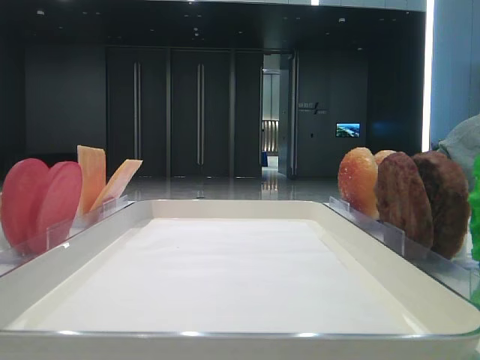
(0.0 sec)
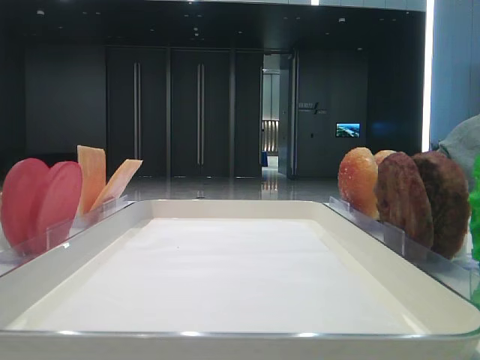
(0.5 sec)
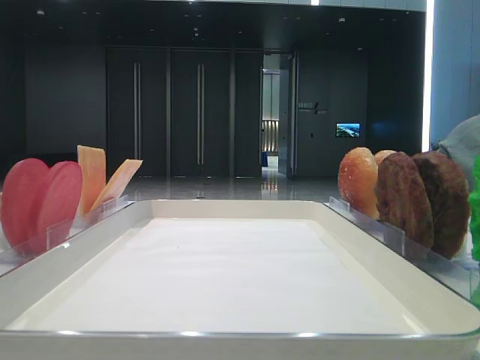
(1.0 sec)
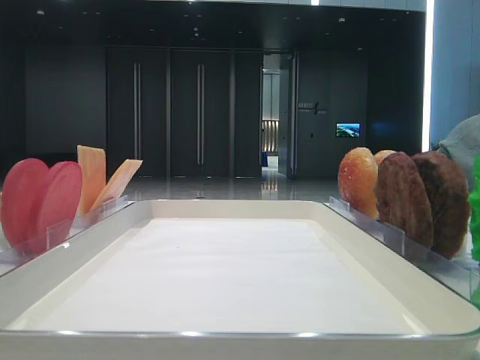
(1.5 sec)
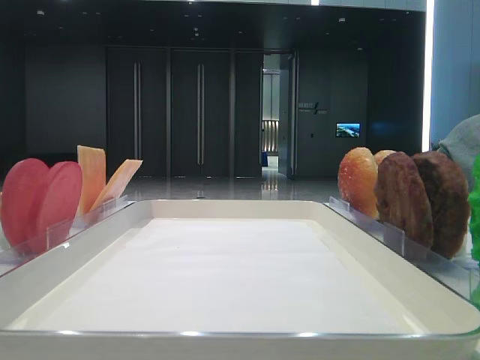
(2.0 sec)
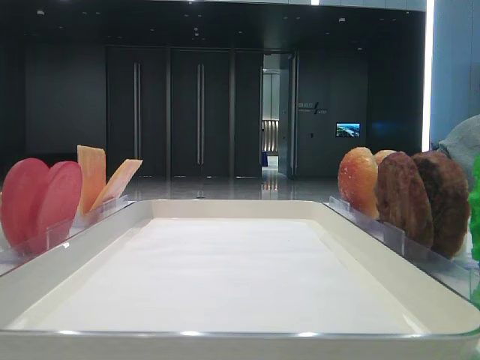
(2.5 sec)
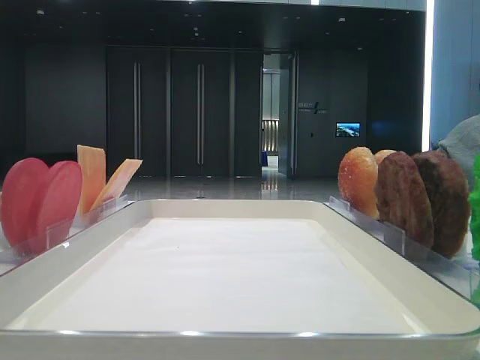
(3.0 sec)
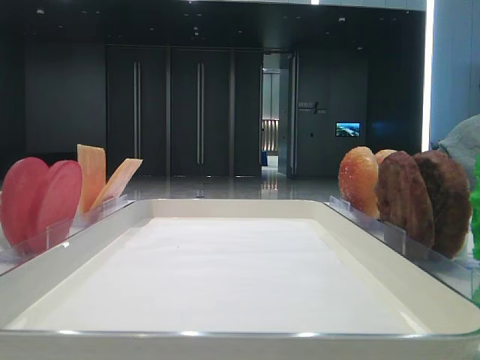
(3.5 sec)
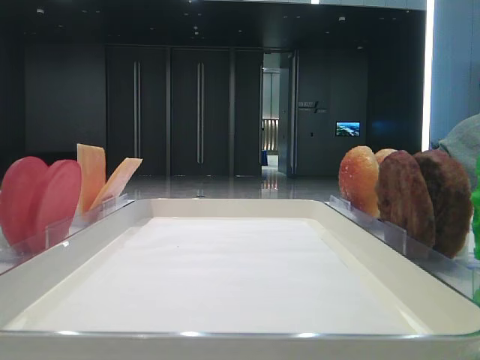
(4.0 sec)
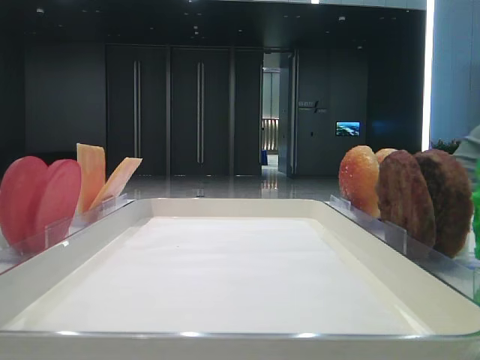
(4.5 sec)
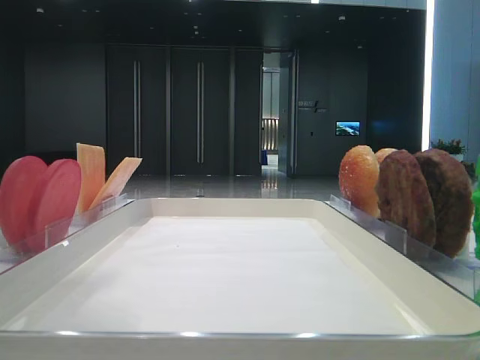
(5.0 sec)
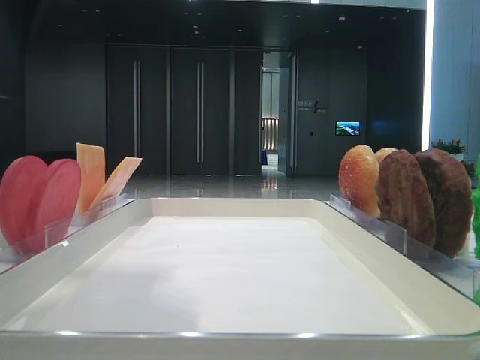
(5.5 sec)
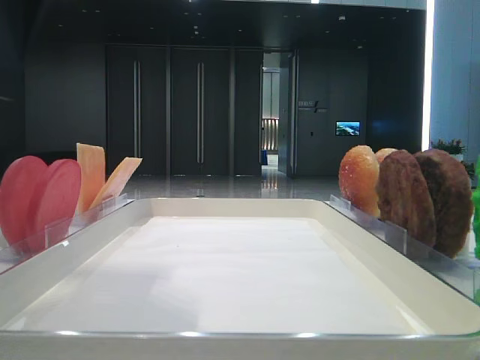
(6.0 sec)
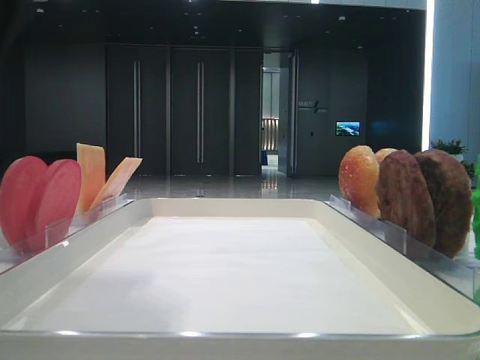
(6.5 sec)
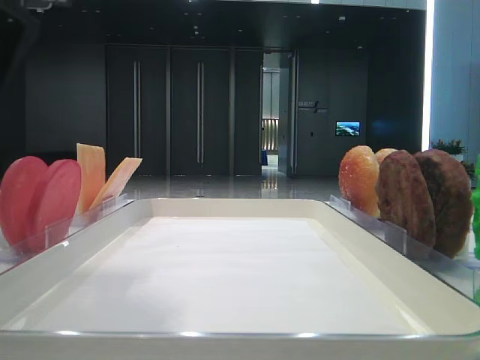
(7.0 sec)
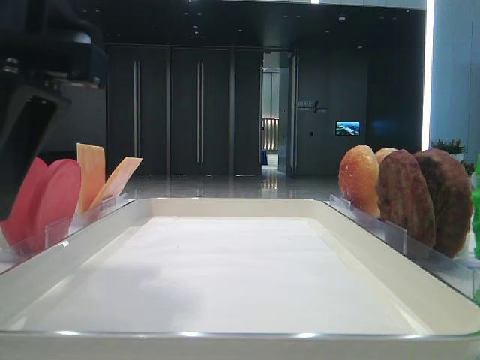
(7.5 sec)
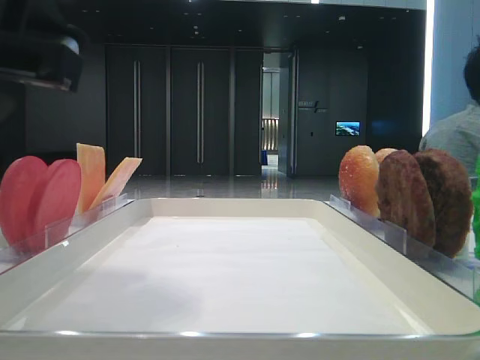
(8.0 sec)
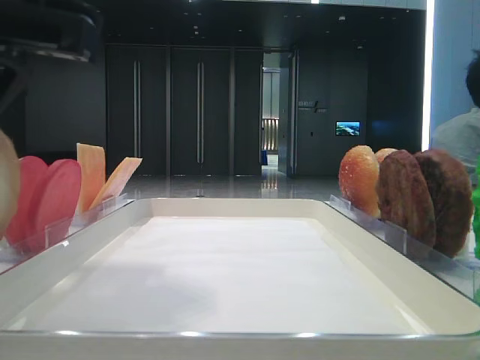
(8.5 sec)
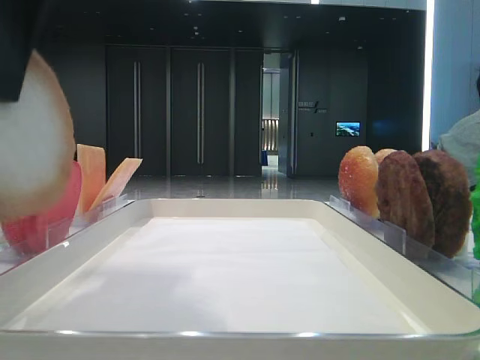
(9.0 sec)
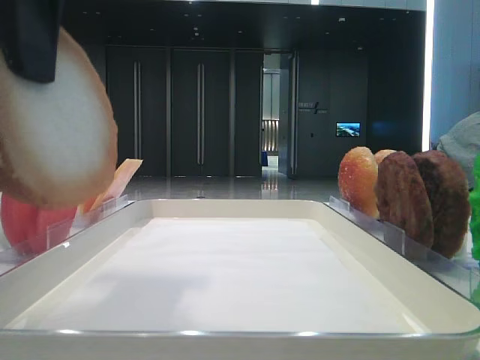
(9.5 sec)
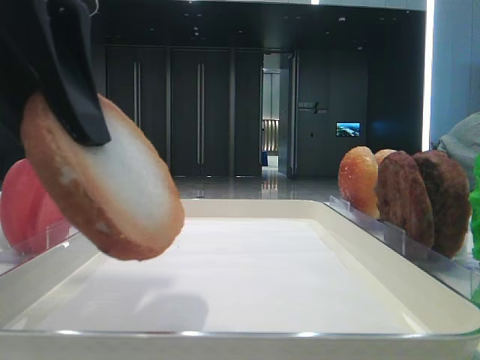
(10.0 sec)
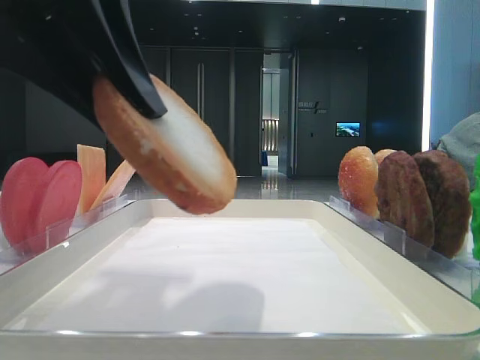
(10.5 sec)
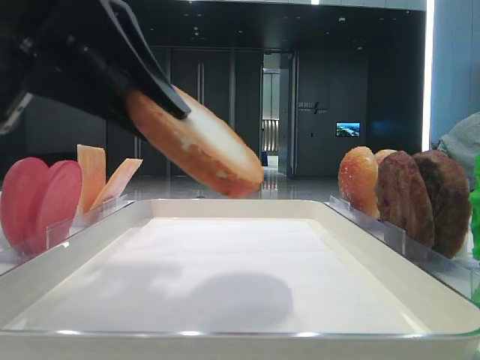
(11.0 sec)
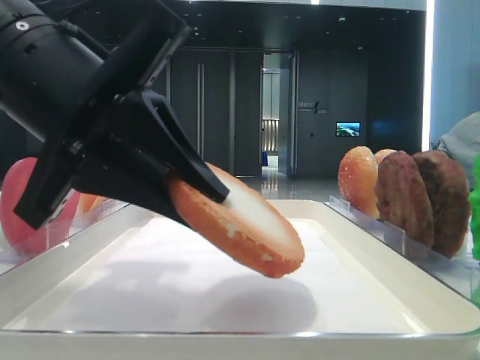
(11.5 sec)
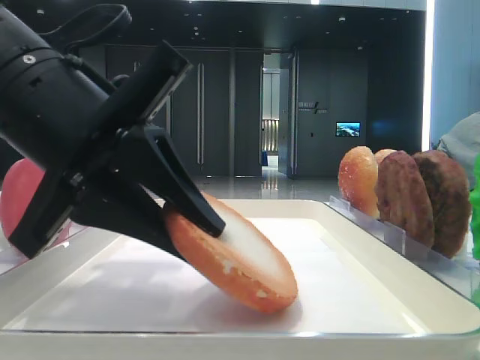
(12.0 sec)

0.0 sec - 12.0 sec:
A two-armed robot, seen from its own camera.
Step, 0.0 sec - 8.0 sec: Pick up the bottom bread slice with the left hand.
2.0 sec - 4.0 sec: The left gripper goes about 15 cm forward.
4.0 sec - 6.0 sec: The left gripper moves to the right, roughly 15 cm.
10.0 sec - 12.0 sec: The left gripper moves downward, about 10 cm.

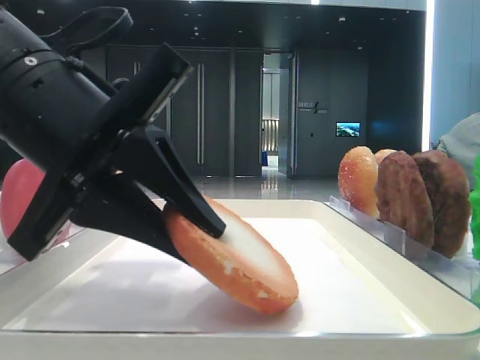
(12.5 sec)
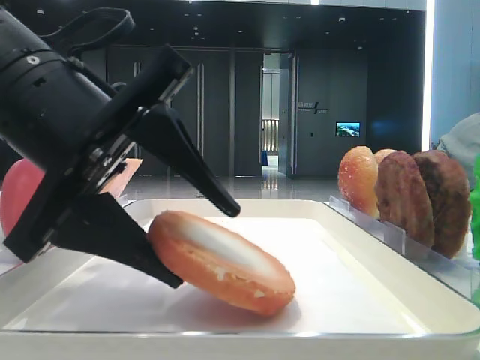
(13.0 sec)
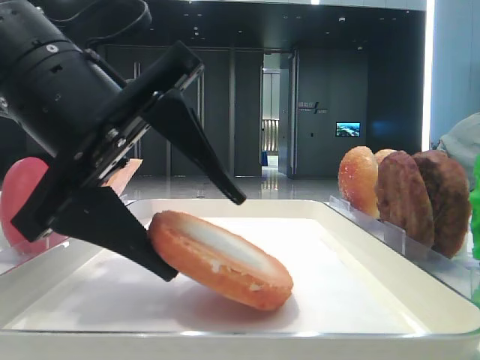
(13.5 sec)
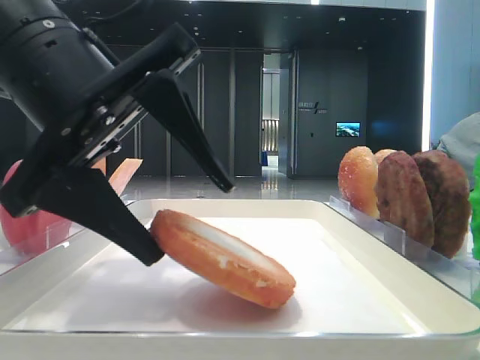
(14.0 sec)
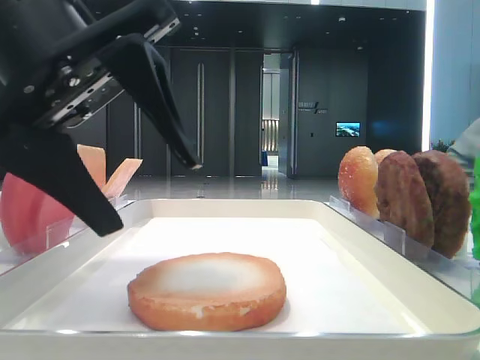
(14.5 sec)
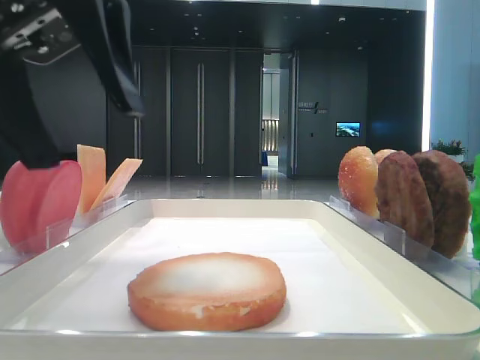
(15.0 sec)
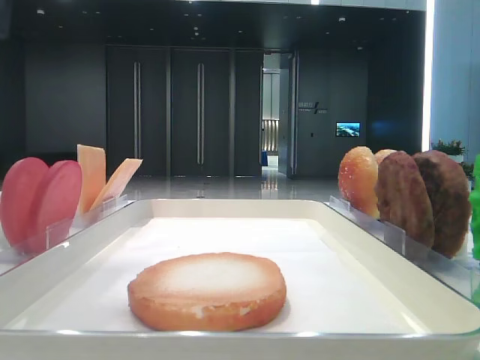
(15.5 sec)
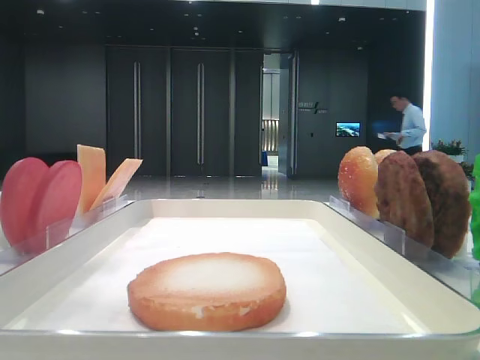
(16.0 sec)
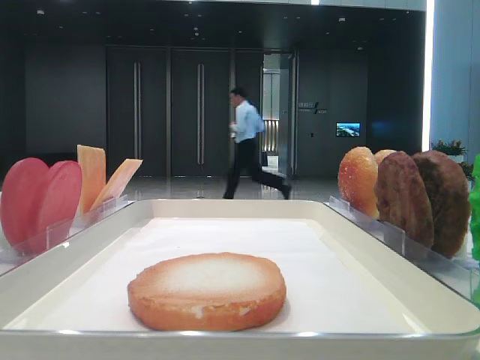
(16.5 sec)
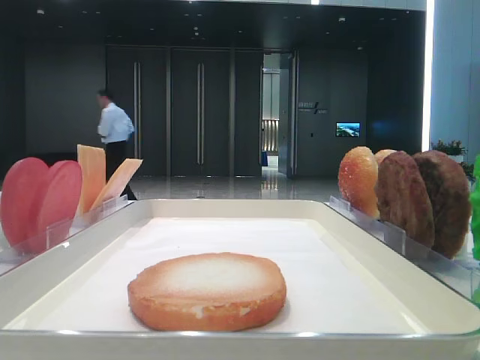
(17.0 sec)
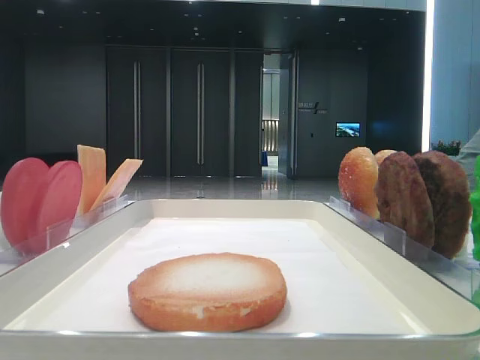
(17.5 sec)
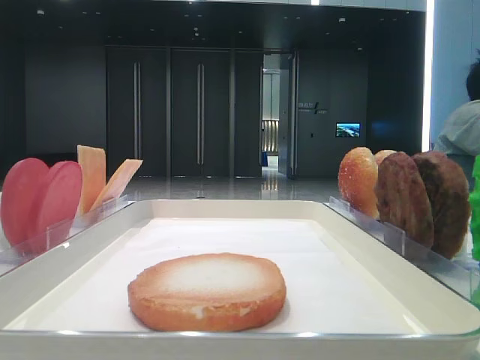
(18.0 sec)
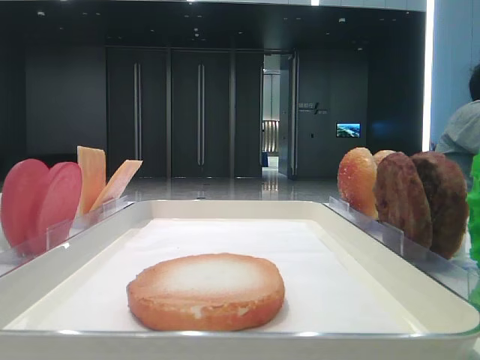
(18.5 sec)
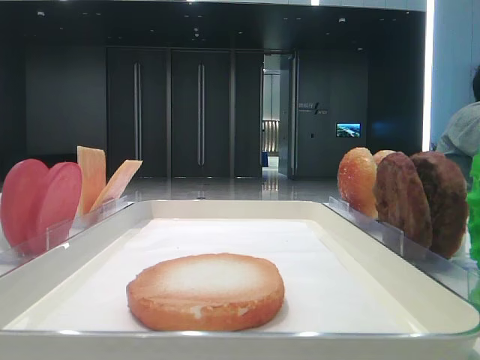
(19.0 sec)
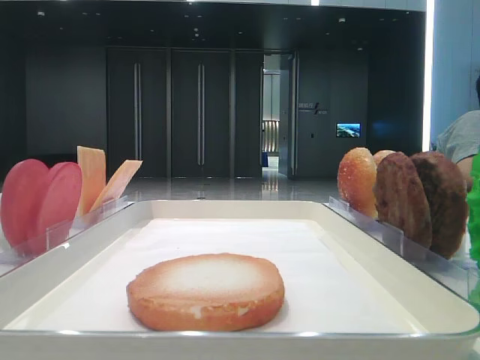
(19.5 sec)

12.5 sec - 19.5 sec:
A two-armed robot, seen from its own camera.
12.5 sec - 14.5 sec: The left gripper moves roughly 5 cm, and opens.
14.5 sec - 16.0 sec: The left gripper shifts about 15 cm upward and to the left.
16.0 sec - 17.5 sec: The left gripper travels backward and to the left by about 15 cm.
17.5 sec - 19.5 sec: The left gripper moves backward and downward, some 15 cm.

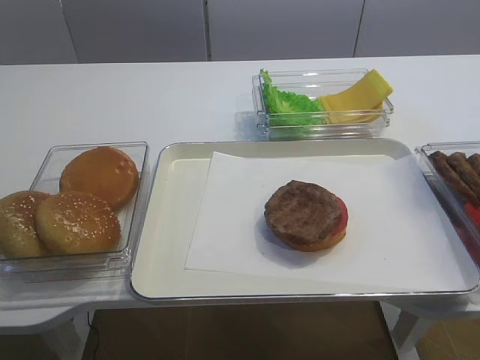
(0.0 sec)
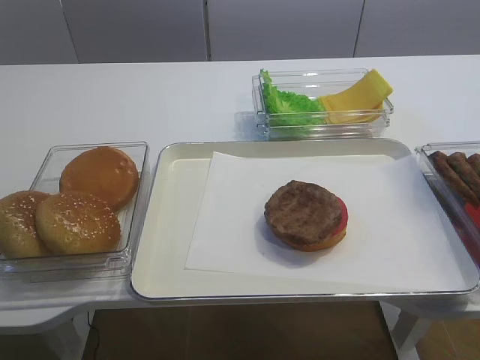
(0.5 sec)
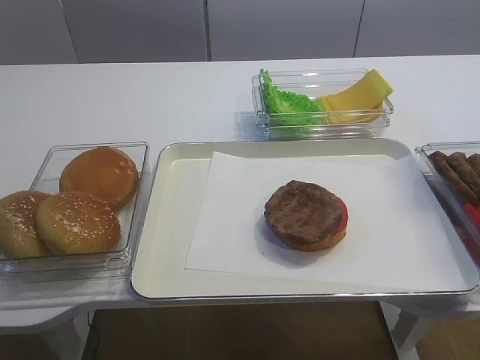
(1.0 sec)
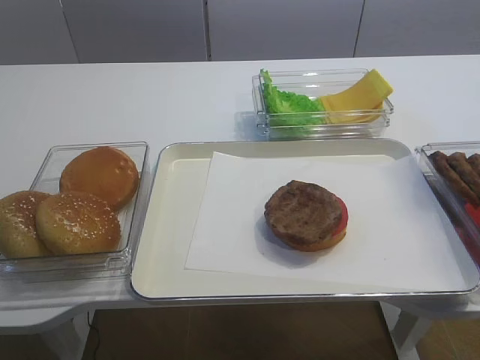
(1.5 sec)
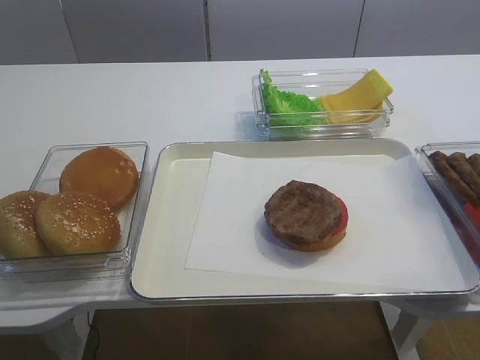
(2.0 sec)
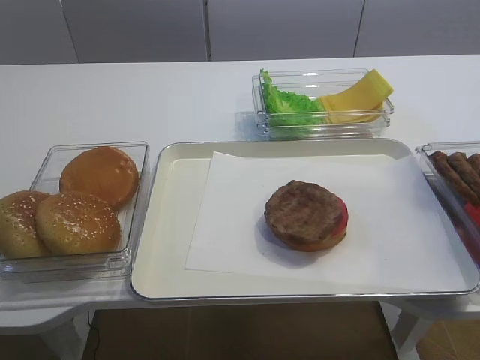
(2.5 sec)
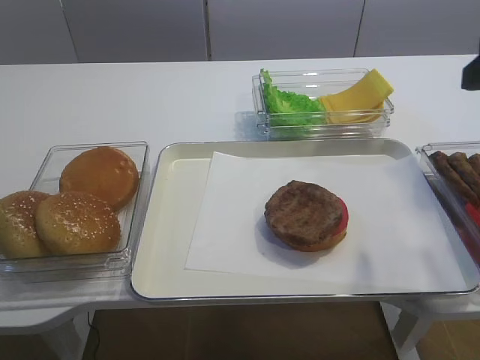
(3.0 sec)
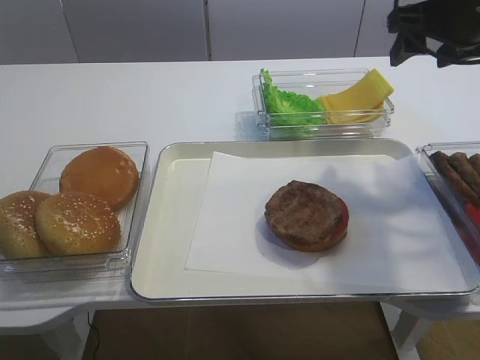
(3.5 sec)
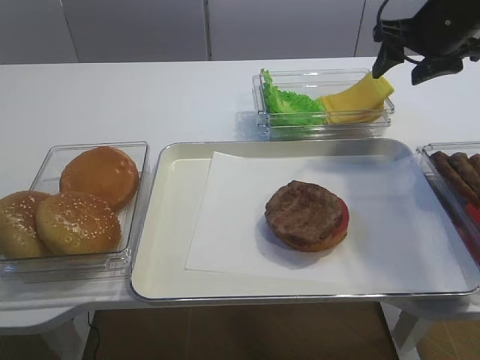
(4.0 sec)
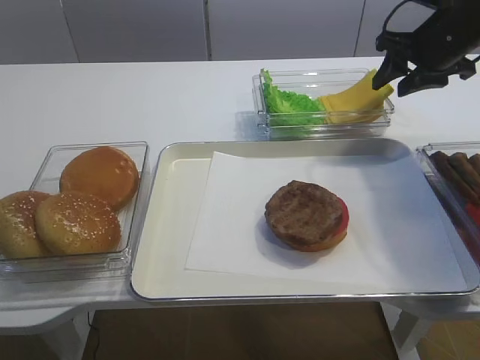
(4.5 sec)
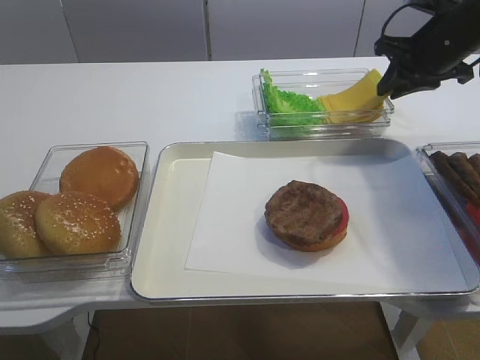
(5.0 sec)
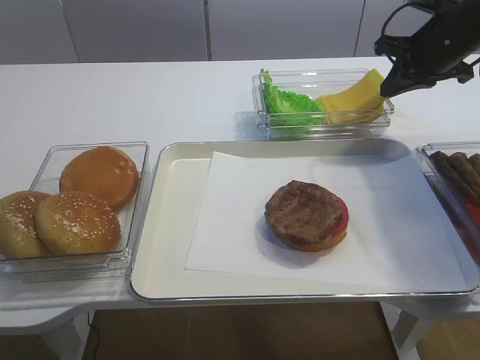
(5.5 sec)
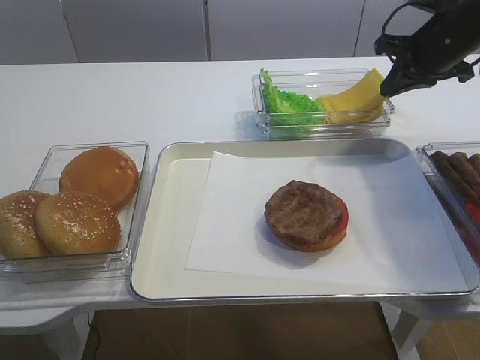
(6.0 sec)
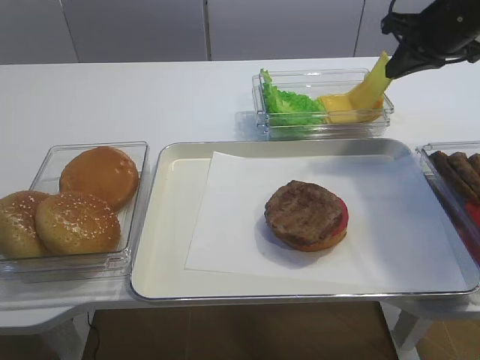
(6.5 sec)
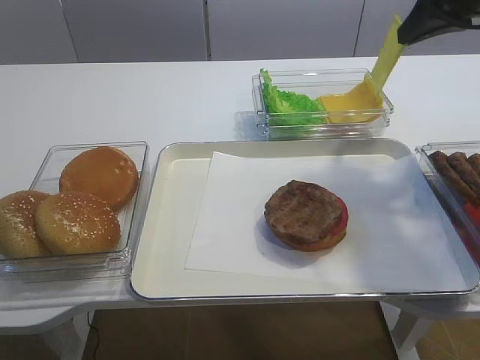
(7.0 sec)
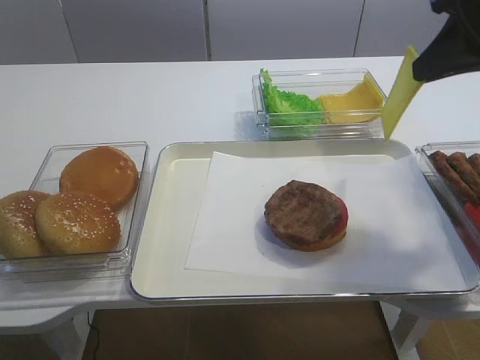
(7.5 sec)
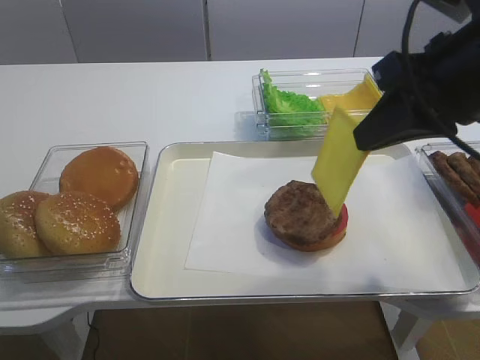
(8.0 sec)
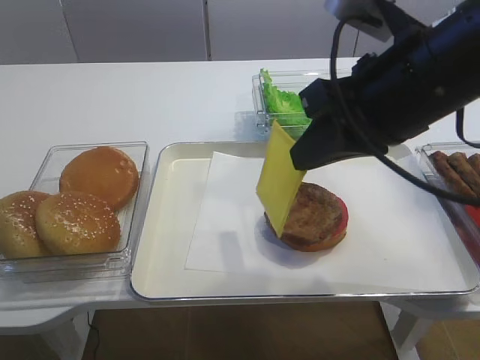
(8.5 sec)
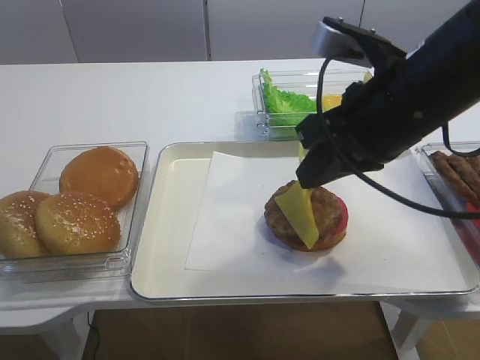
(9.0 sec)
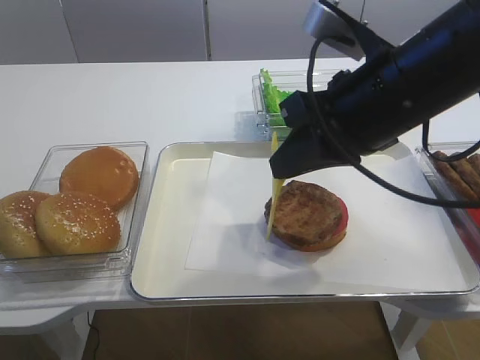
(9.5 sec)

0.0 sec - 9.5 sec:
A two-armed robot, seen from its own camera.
Step, 0.0 sec - 6.5 sec: Pick up the cheese slice with the right gripper.
2.0 sec - 4.0 sec: The right gripper shifts about 40 cm forward.
4.0 sec - 5.5 sec: The right gripper closes its fingers.
5.5 sec - 7.5 sec: The right gripper travels backward and upward by some 20 cm.
7.5 sec - 9.5 sec: The right gripper moves to the left and downward, some 15 cm.
